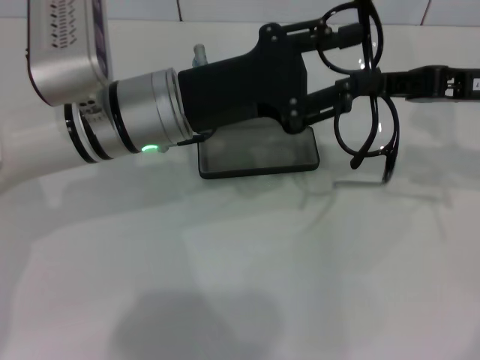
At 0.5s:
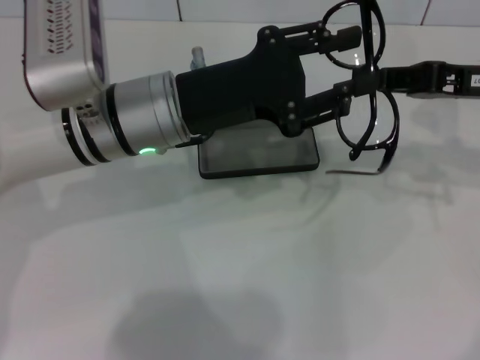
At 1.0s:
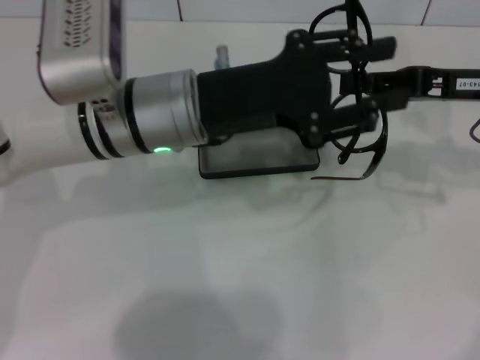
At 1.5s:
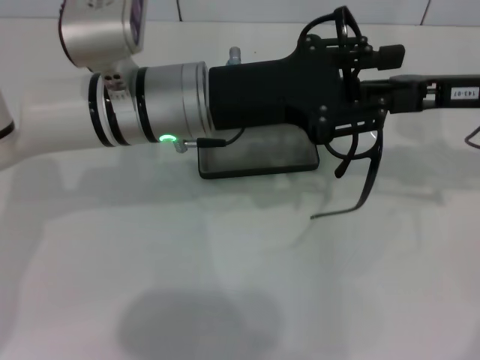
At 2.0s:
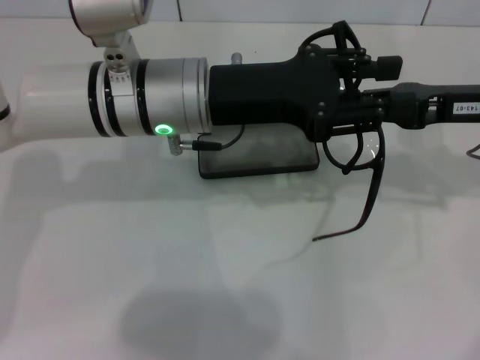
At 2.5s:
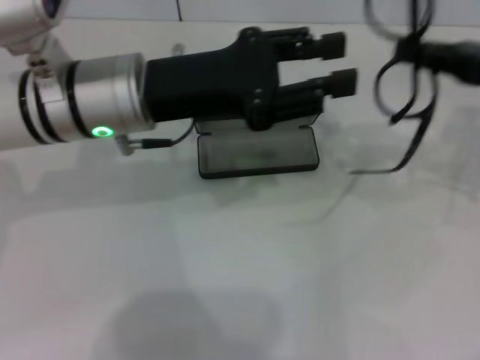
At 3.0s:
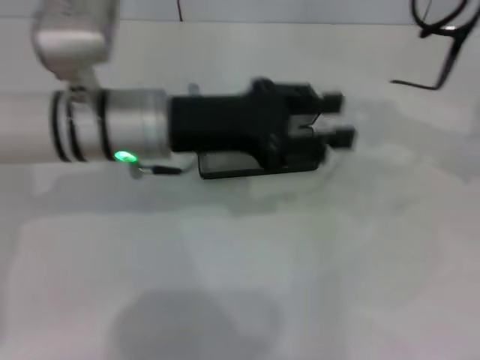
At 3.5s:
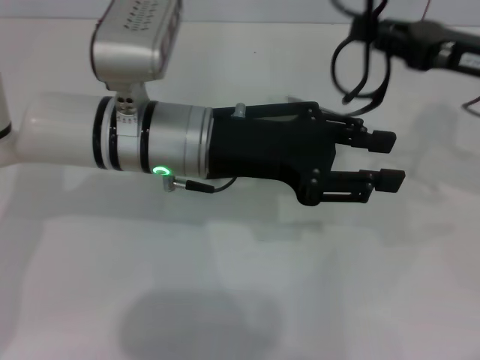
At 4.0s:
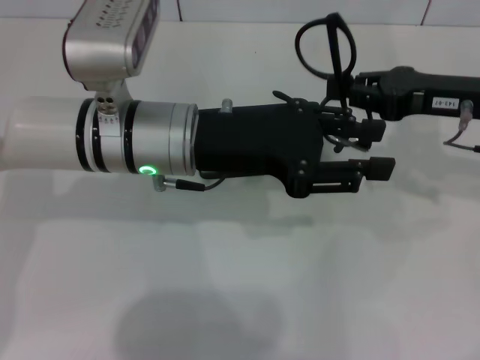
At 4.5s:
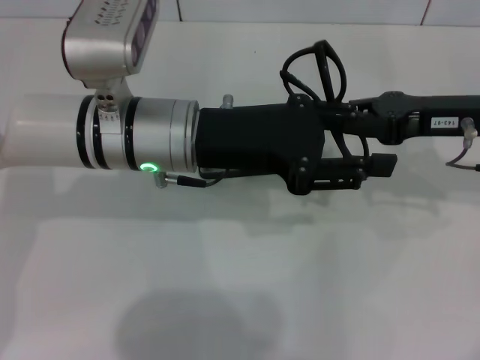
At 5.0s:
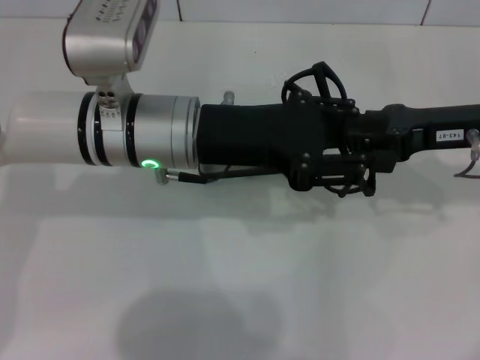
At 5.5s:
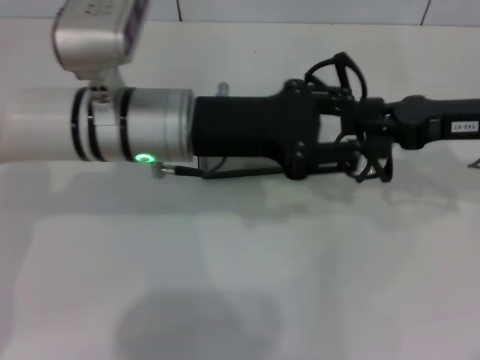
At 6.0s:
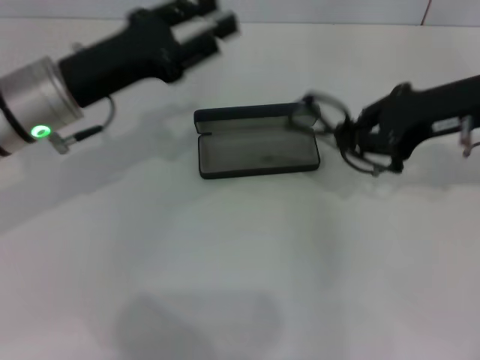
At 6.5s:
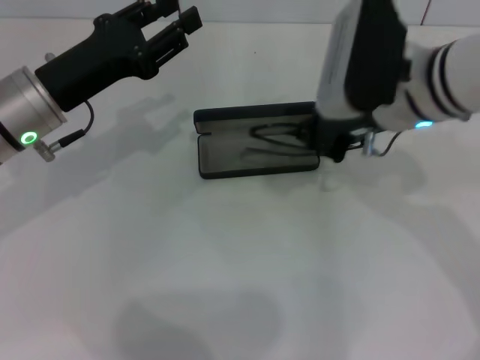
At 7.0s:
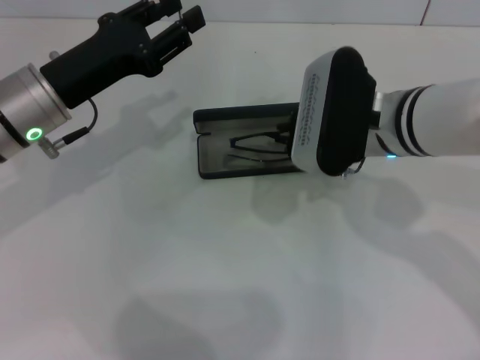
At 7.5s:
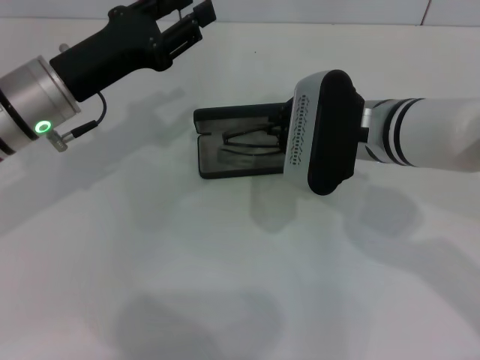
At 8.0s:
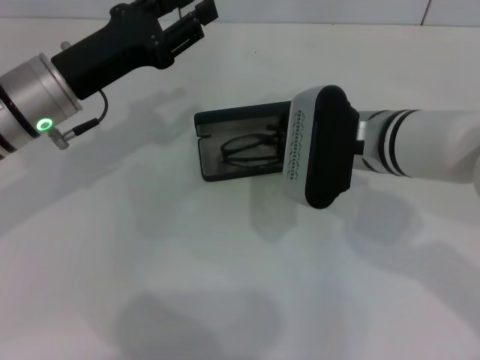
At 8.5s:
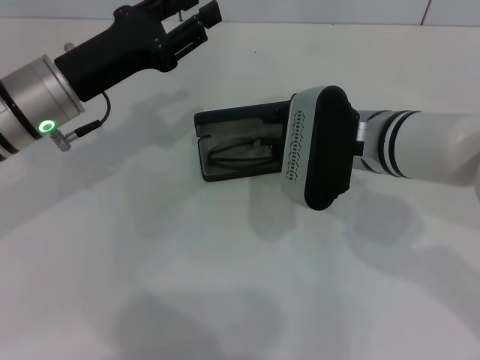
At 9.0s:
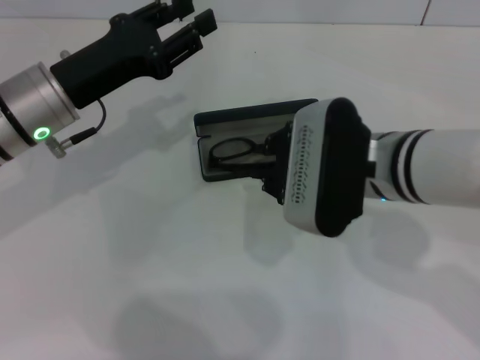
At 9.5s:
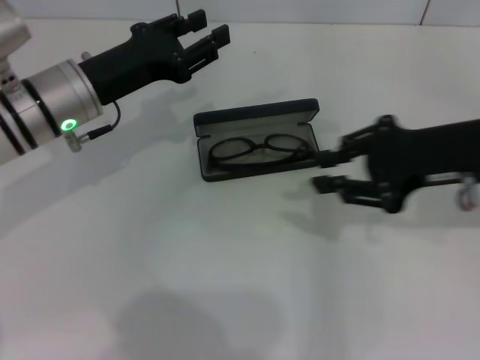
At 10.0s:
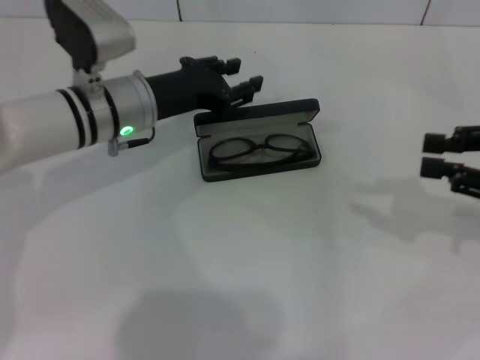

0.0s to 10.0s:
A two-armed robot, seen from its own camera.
Step, 0.0s to 5.0s: Fold the frame with your left hand.
Step, 5.5s to 8.0s: Put the glasses into the case with your right hand.
4.0s to 6.0s: The left gripper shifts roughly 10 cm to the left.
6.0s to 8.0s: The right gripper shifts some 15 cm to the left and downward.
8.0s to 10.0s: The right gripper heads to the right, covering about 25 cm. The left gripper travels to the right by roughly 5 cm.

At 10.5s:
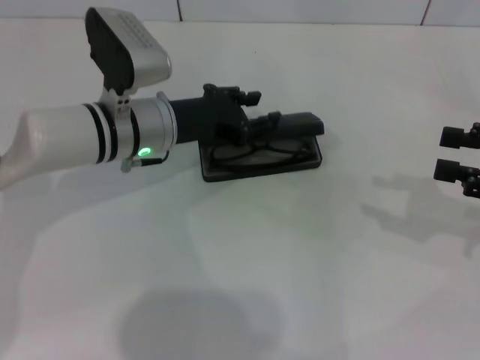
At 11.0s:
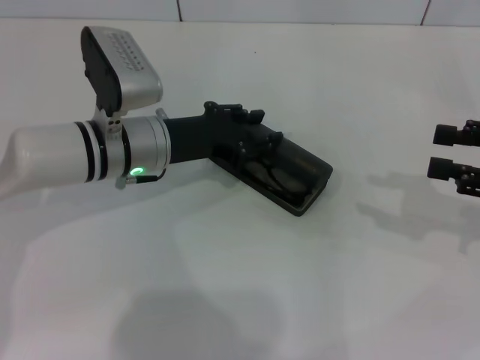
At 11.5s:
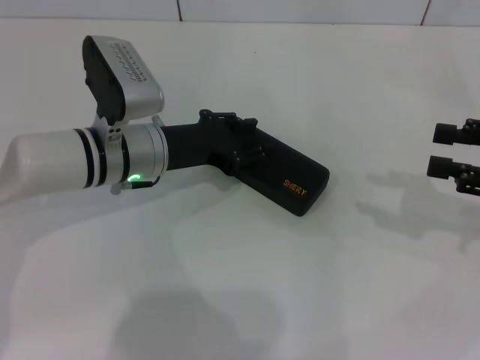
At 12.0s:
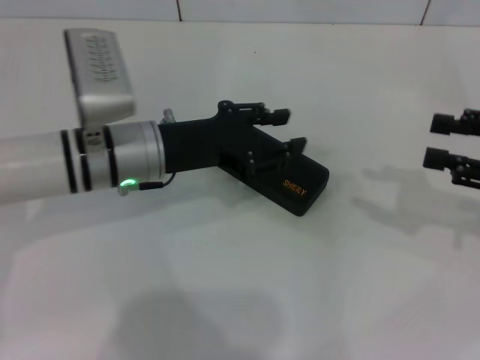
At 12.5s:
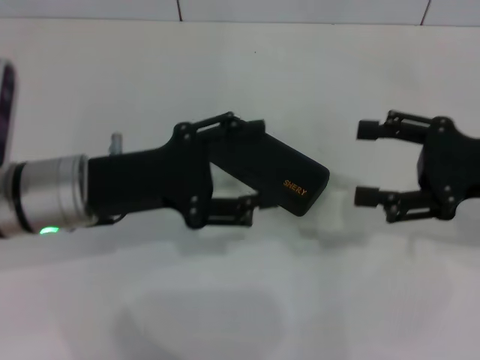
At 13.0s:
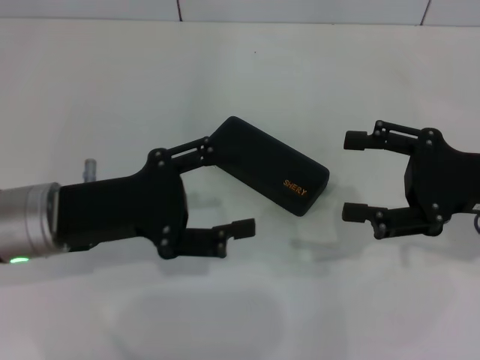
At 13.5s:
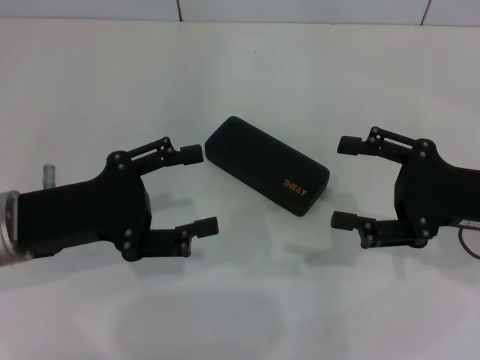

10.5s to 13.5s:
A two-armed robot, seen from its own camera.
10.5s to 12.0s: There are only small adjustments of the grippers.
12.0s to 13.5s: The left gripper is displaced to the left and backward by about 15 cm, and opens its fingers. Meanwhile the right gripper travels to the left by some 10 cm, and opens up.
